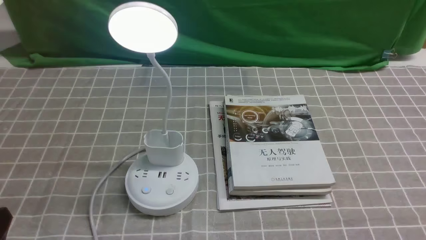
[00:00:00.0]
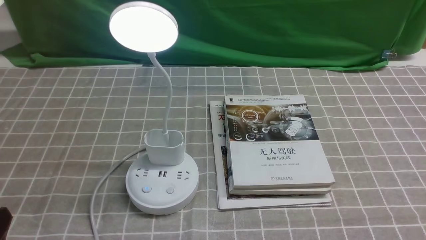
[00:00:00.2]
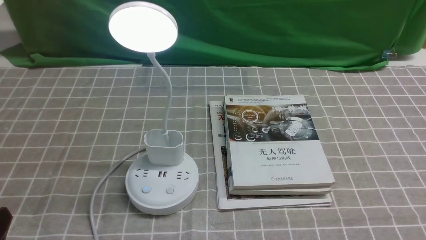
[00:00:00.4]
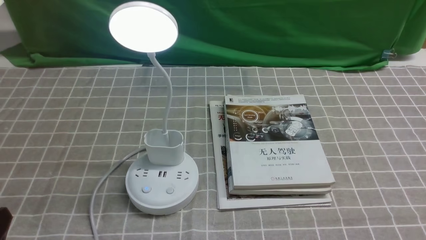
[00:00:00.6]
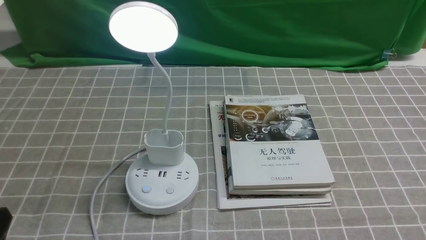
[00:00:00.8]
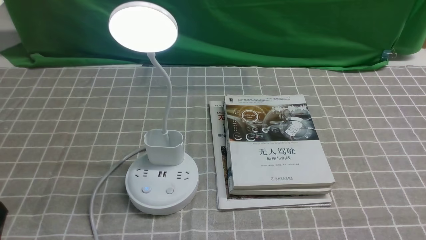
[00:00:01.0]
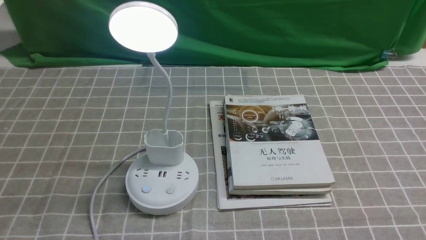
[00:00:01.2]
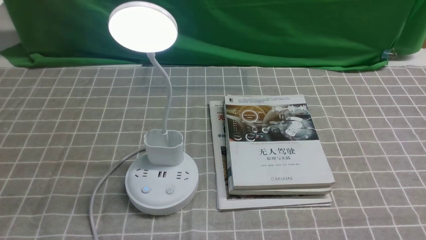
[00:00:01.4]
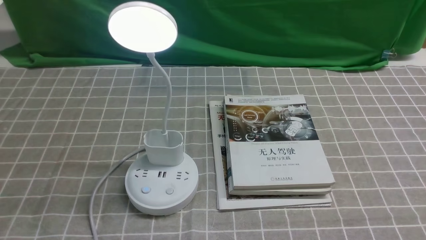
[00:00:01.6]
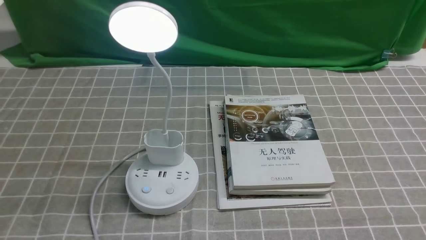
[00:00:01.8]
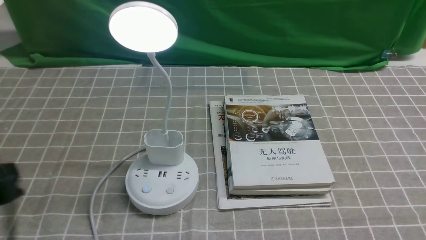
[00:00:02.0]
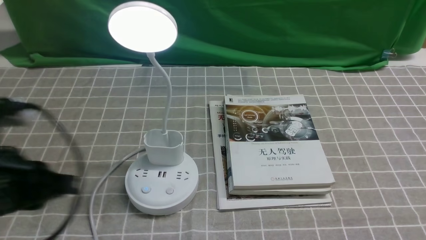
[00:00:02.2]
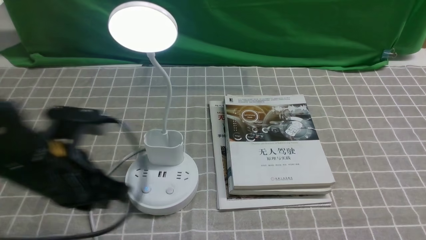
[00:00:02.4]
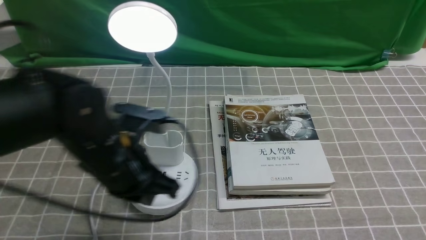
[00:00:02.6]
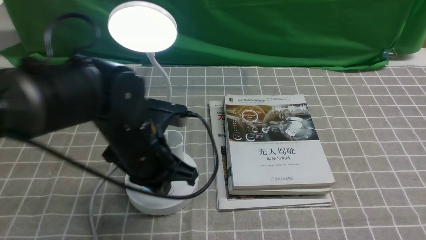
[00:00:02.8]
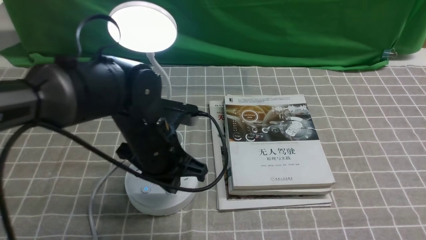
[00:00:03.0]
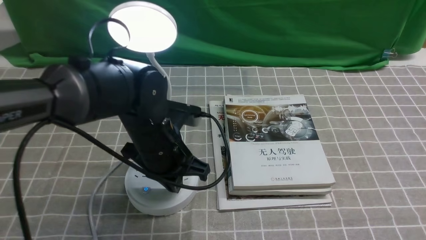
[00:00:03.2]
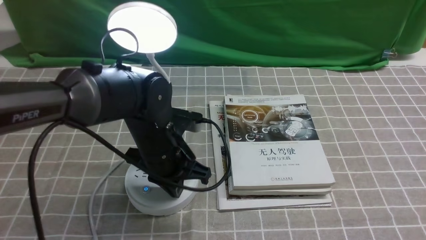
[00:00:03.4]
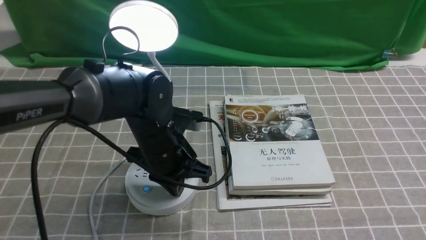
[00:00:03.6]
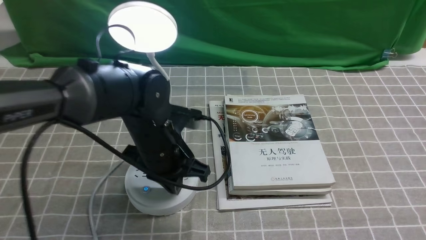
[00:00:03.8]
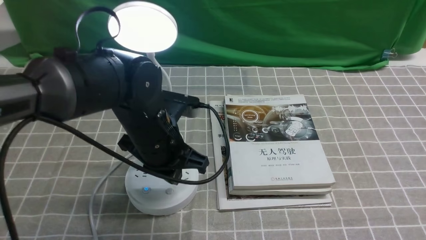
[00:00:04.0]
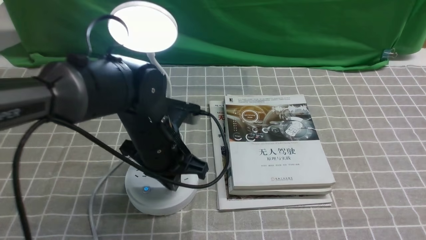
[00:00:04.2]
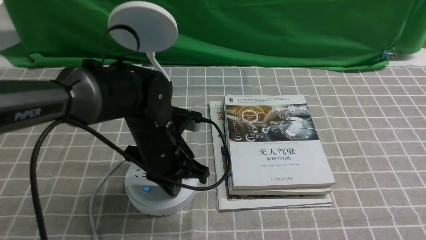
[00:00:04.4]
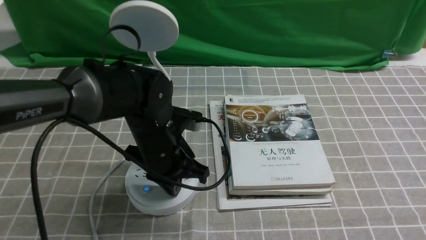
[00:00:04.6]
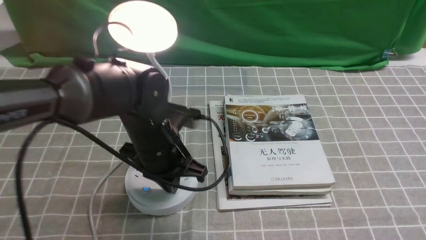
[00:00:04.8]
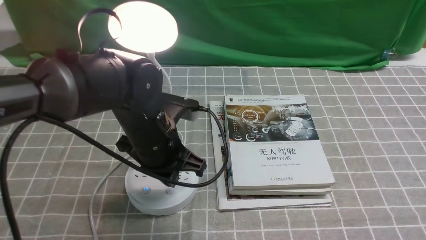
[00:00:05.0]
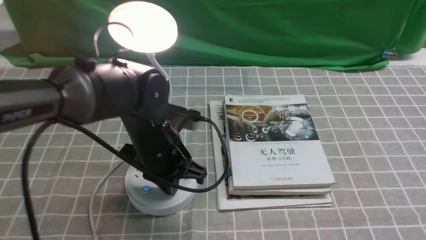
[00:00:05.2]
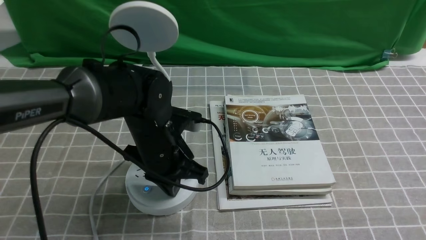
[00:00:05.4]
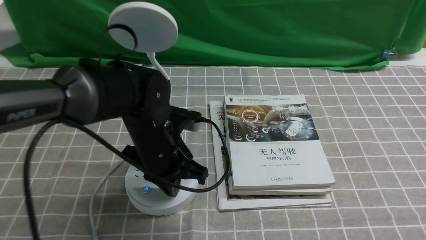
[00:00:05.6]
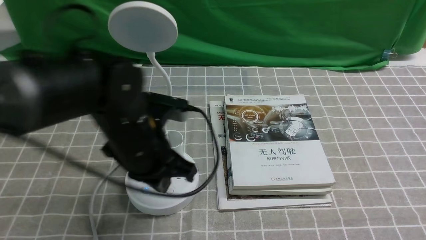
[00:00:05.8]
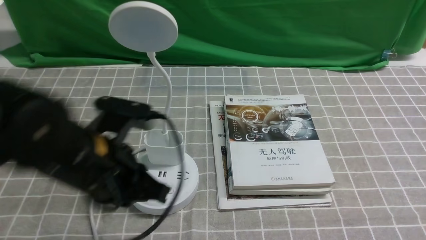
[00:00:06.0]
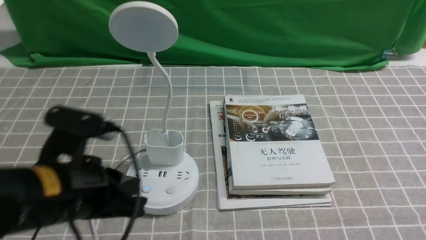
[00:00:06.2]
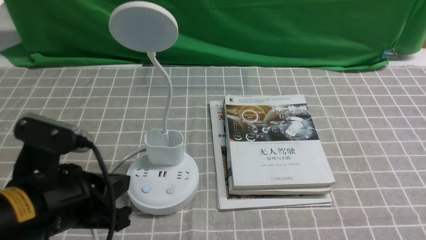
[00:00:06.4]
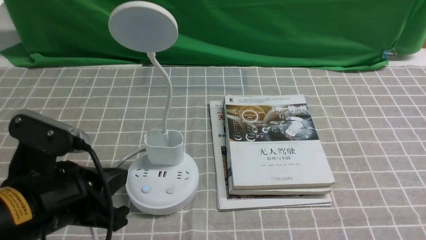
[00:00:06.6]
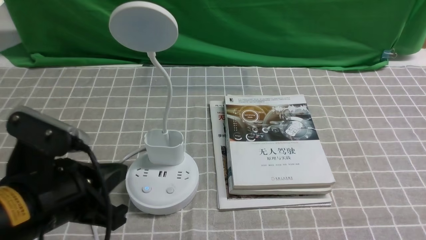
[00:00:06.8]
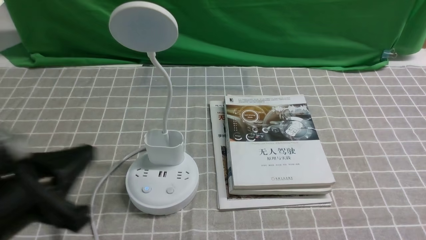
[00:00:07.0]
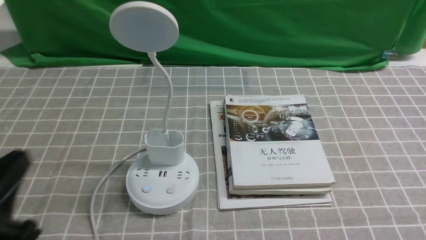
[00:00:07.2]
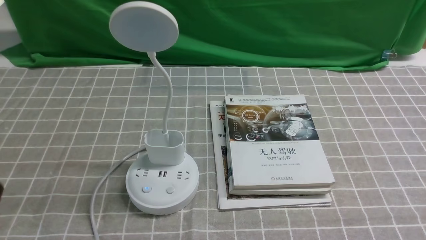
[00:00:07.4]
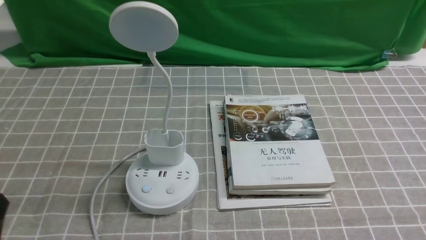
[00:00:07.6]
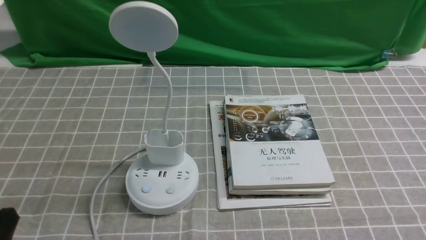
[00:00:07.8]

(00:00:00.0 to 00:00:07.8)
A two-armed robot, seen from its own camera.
Task of the whole recording: turn off the desk lamp on the grey coffee tablecloth by hand.
Step, 00:00:00.0 - 00:00:05.6: use the left arm to press the button switch on the lamp holder.
00:00:01.6 - 00:00:03.2: The left gripper shifts roughly 30 cm forward and to the right, and closes.
00:00:03.2 - 00:00:04.6: The left gripper opens up.
00:00:04.6 - 00:00:06.2: The left gripper shifts roughly 15 cm backward, upward and to the left.
00:00:06.2 - 00:00:07.8: The left gripper goes some 20 cm backward, to the left and downward.

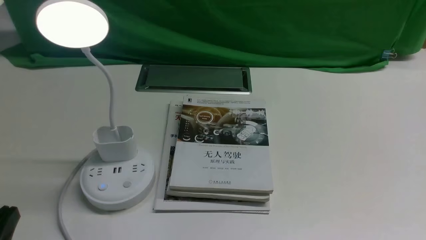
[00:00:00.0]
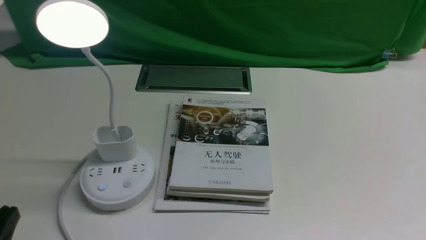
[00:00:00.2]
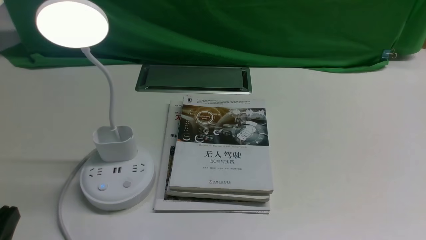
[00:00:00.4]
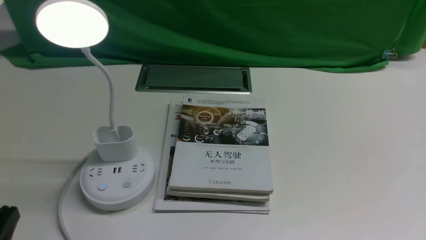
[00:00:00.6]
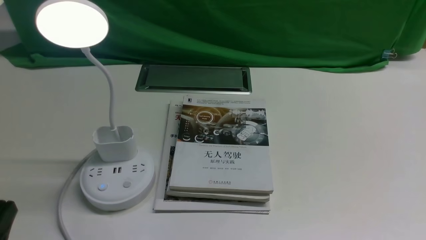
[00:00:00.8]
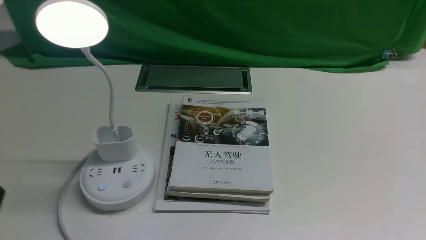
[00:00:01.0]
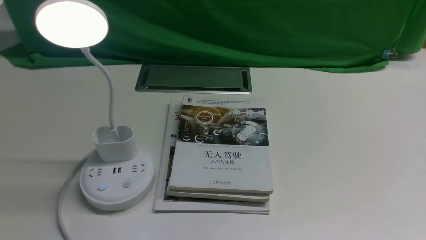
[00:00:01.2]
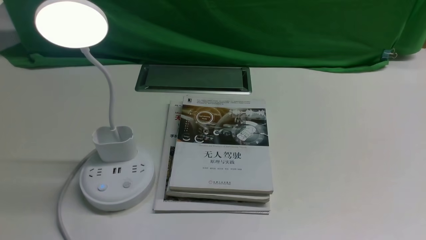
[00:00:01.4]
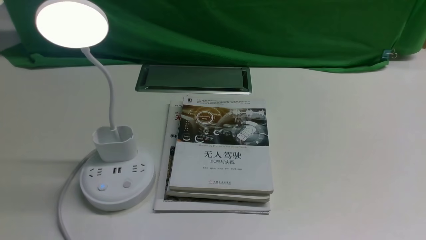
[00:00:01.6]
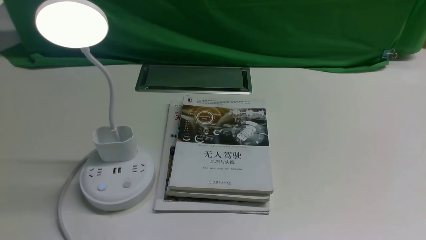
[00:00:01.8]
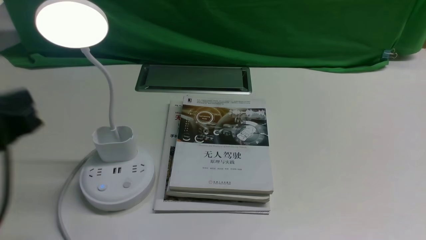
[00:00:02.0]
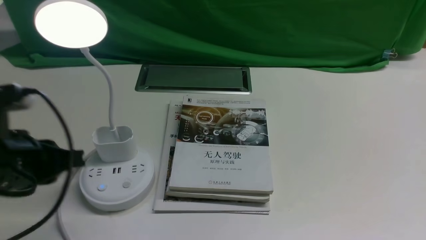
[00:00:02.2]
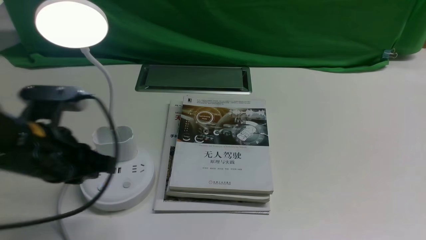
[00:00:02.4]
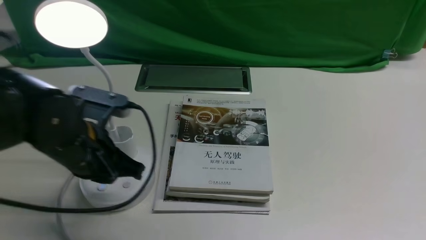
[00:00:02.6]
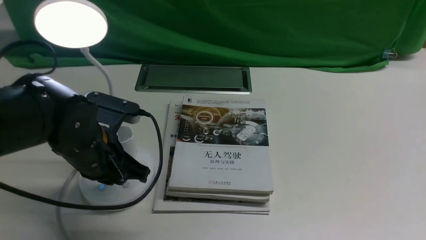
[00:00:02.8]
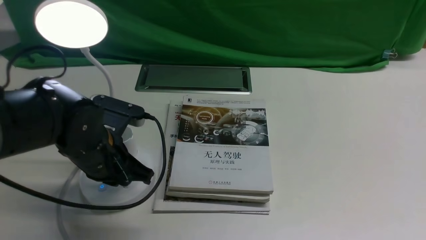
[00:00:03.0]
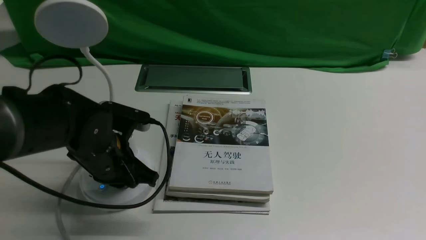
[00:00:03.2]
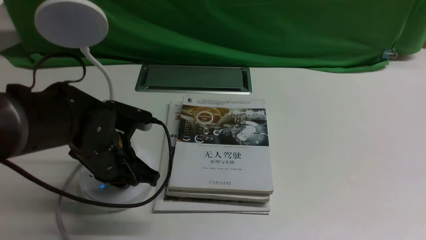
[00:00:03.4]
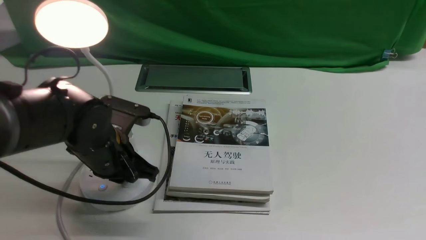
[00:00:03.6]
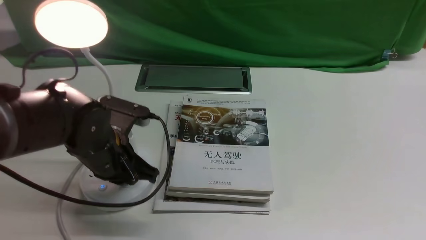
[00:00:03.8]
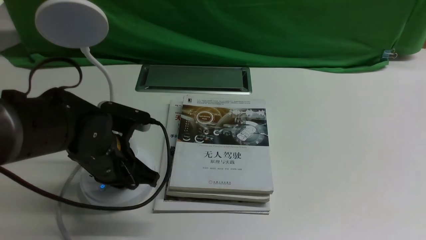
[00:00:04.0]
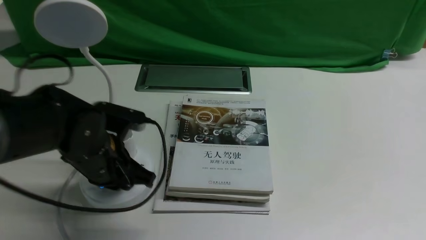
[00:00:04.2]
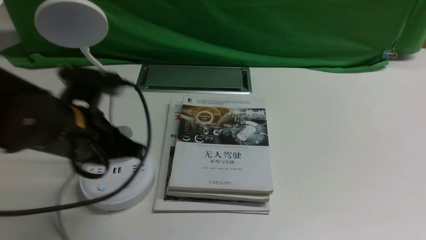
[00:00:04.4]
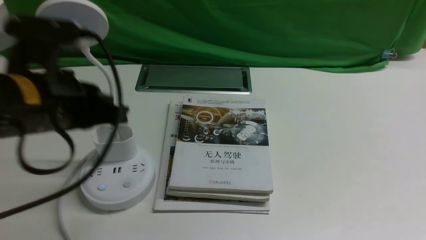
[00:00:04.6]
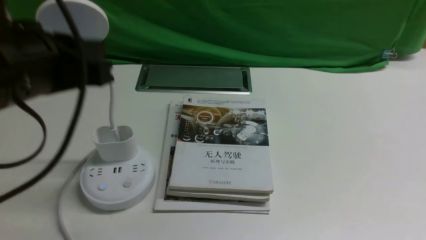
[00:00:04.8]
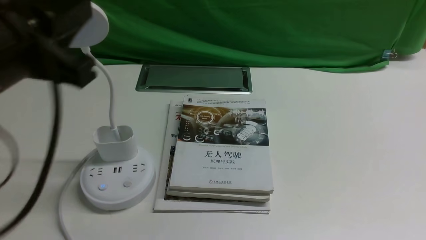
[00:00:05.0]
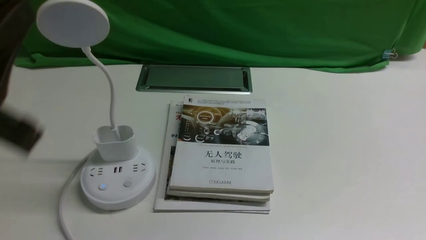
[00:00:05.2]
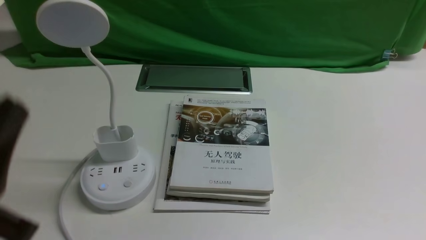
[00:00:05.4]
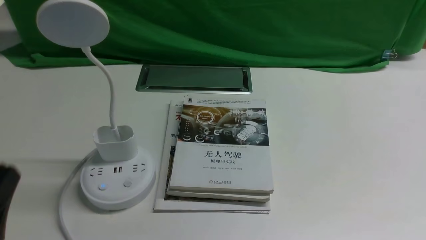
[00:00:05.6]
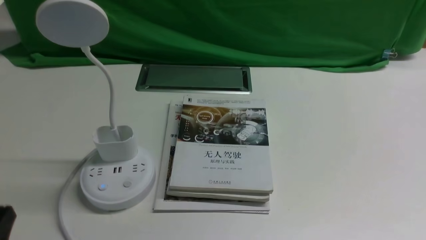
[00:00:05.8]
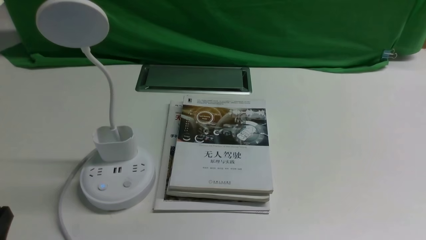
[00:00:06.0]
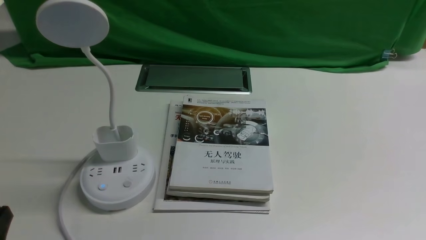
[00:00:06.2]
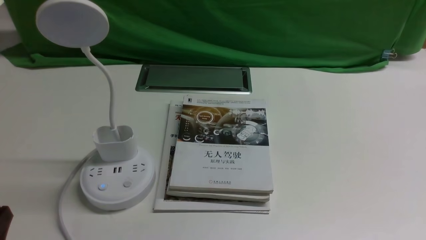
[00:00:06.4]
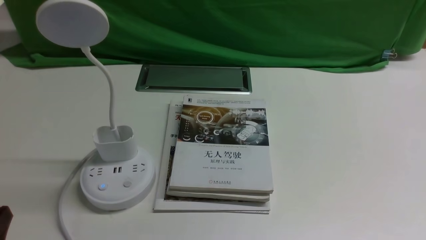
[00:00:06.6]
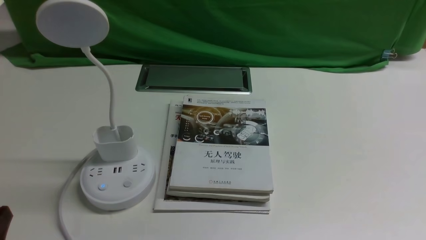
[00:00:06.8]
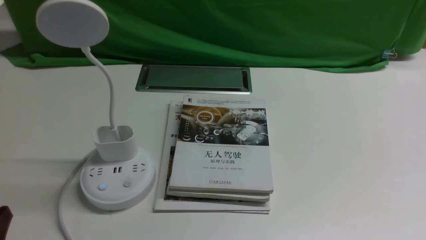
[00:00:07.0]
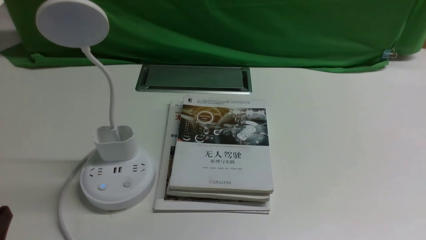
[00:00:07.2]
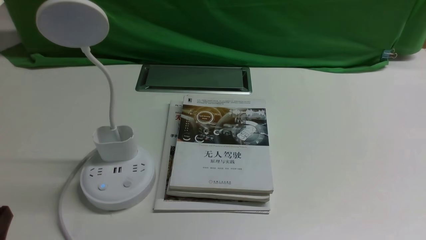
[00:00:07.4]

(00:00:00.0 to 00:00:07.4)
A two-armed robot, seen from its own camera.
Task of the whole recording: turn off the desk lamp on the white desktop by hand.
Step, 00:00:00.0 - 00:00:04.2: use the left arm to press the button switch on the lamp holder.
00:00:00.0 - 00:00:01.4: The left gripper travels upward by roughly 10 cm.
00:00:01.4 - 00:00:03.0: The left gripper goes roughly 25 cm forward and to the right.
00:00:03.0 - 00:00:04.4: The left gripper shifts roughly 10 cm upward.
00:00:04.4 - 00:00:06.0: The left gripper travels backward, to the left and downward by some 25 cm.
